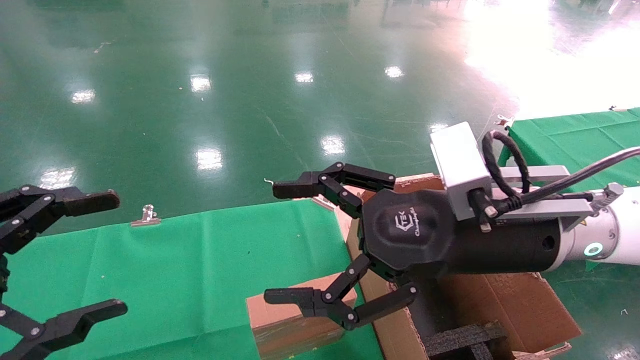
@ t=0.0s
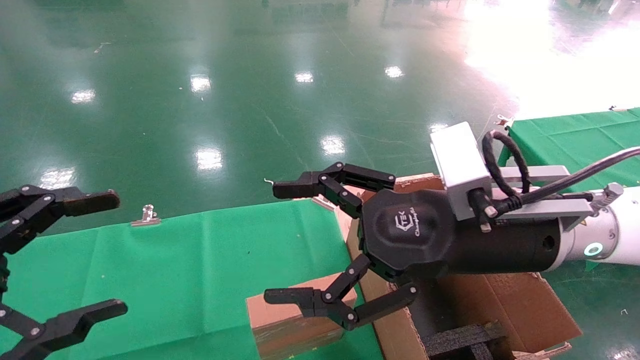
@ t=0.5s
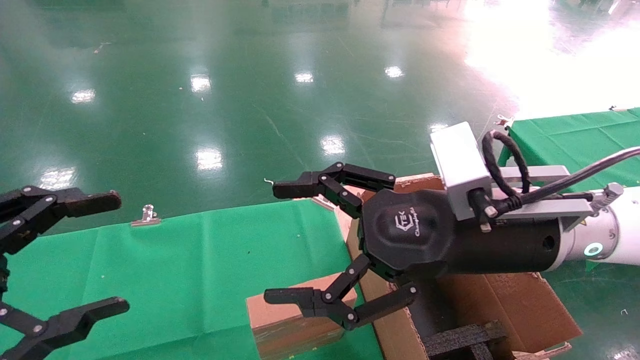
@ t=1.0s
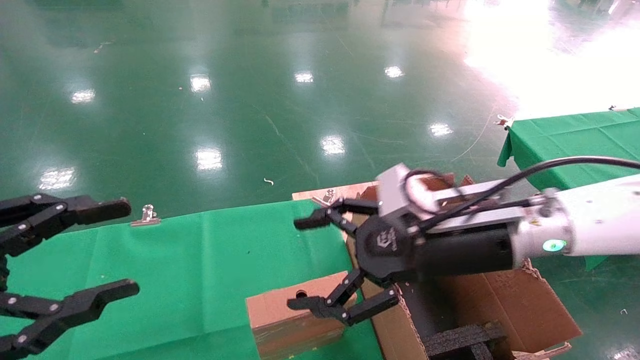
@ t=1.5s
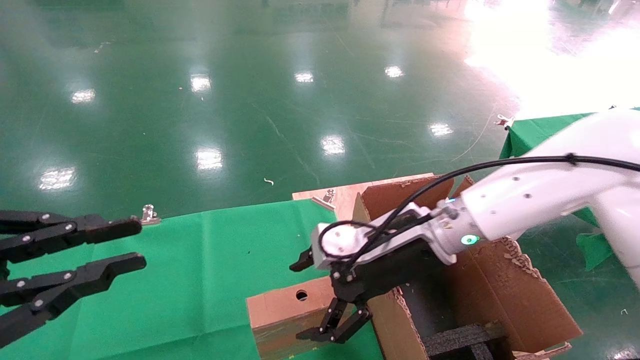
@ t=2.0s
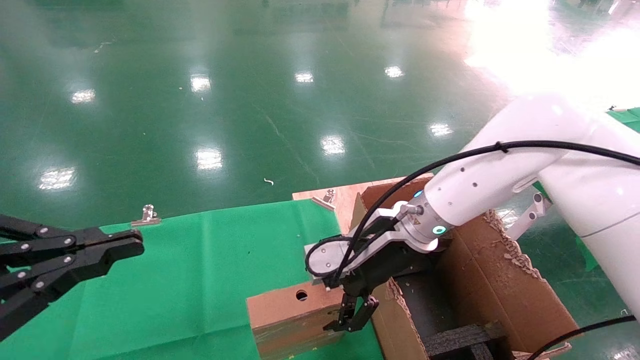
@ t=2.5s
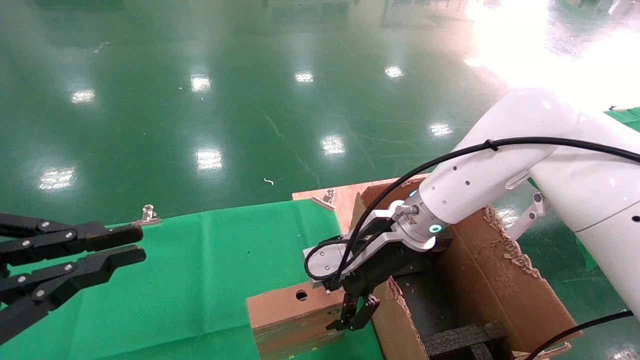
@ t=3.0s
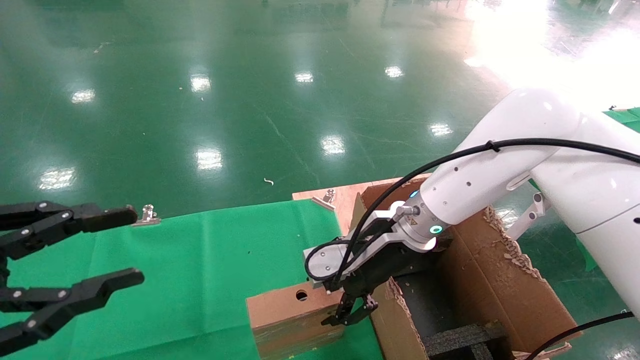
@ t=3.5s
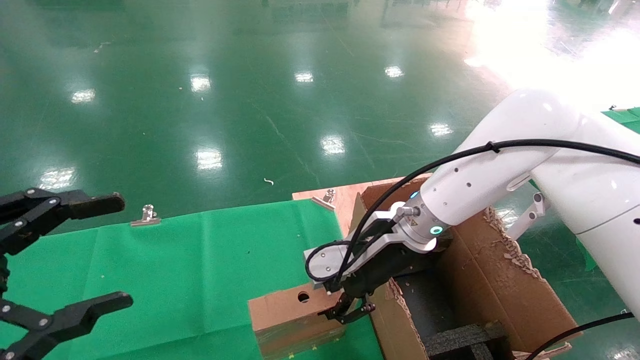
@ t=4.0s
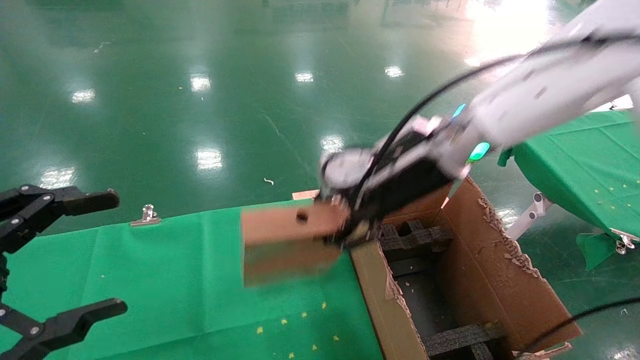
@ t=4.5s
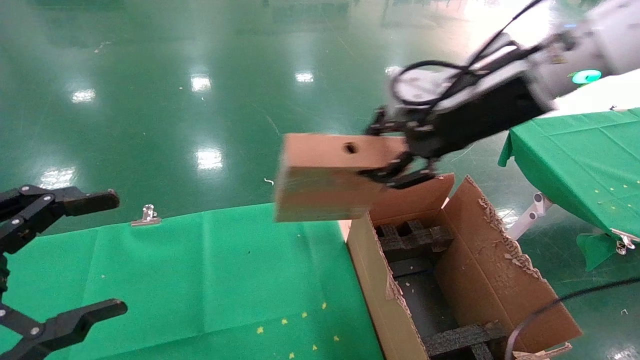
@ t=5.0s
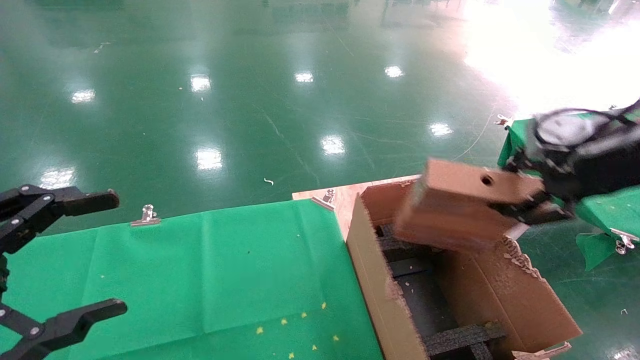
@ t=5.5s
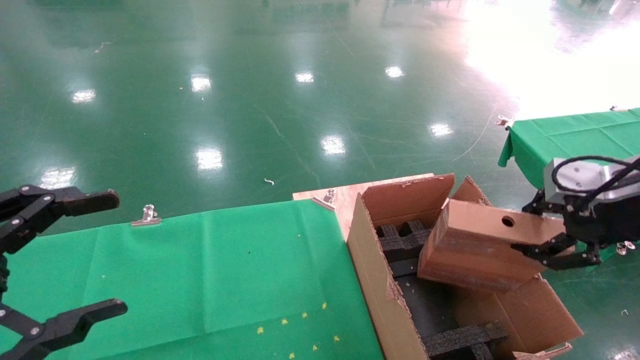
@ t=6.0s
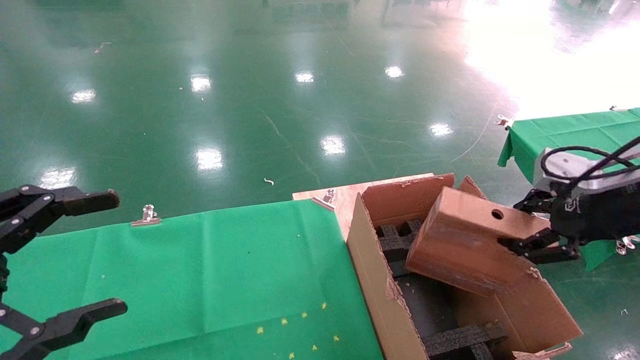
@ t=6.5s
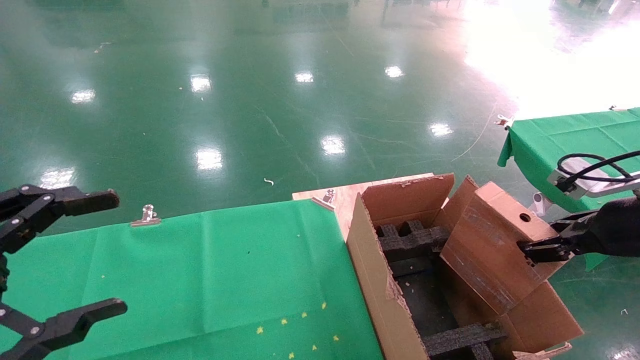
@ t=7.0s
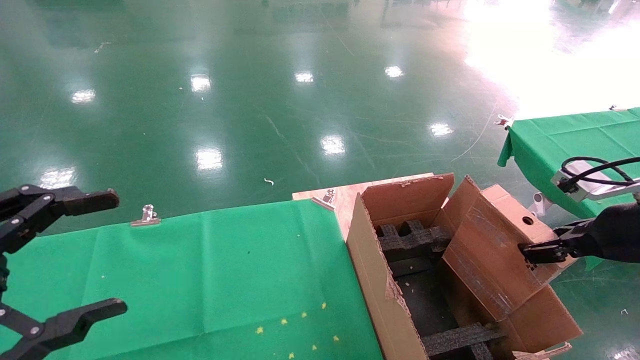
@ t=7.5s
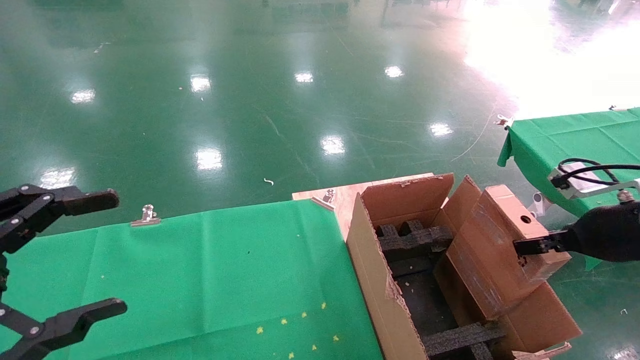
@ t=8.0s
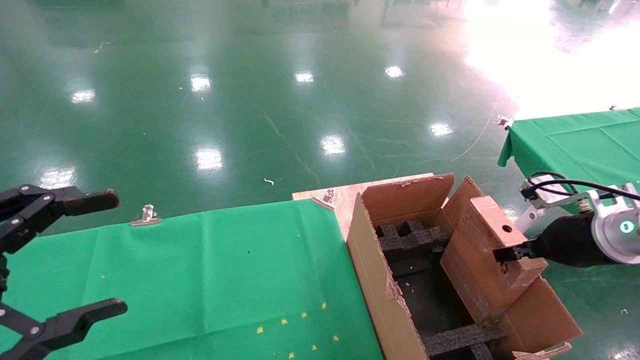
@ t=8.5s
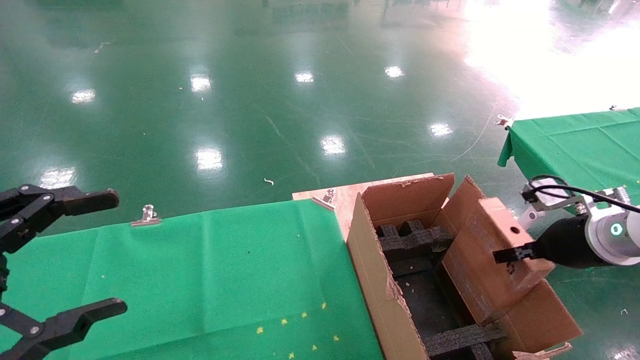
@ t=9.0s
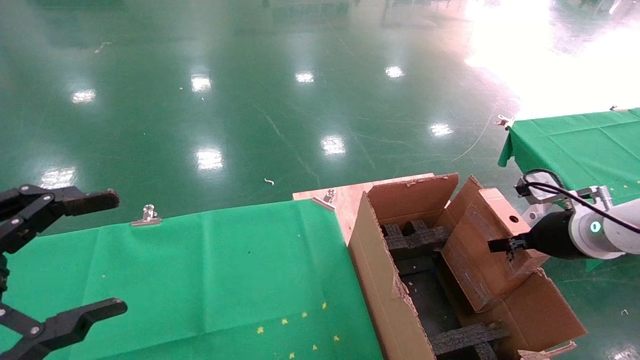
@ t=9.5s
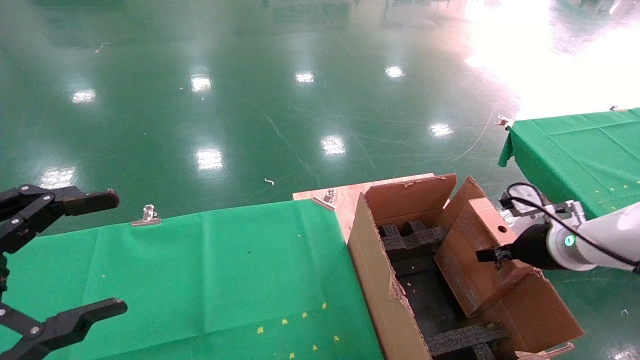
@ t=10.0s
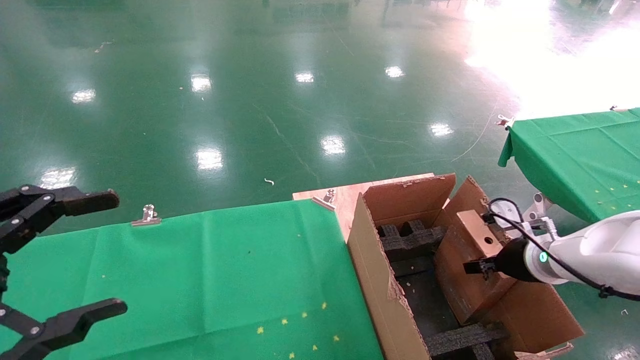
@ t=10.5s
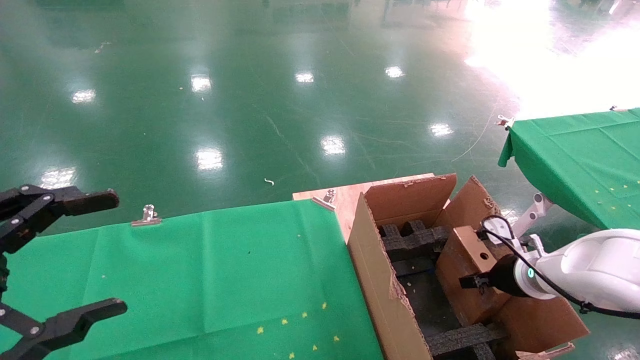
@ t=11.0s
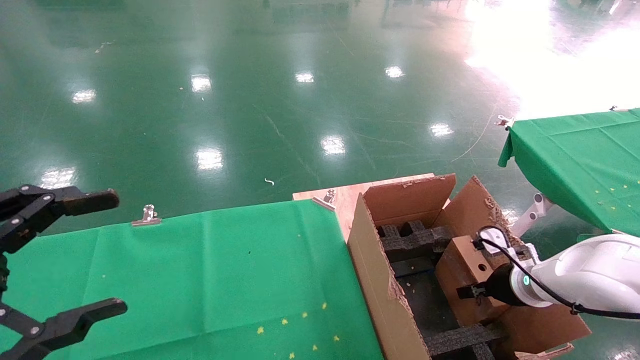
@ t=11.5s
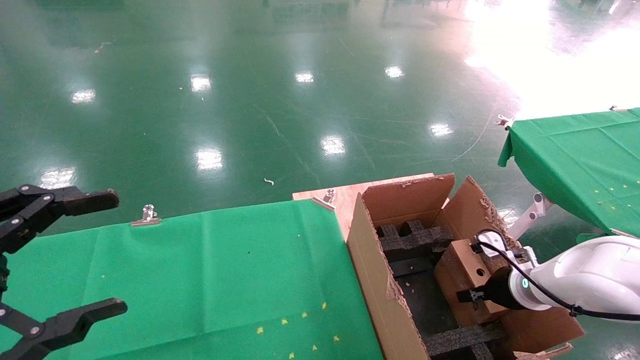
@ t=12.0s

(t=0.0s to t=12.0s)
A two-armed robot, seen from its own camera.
Task of the whole recording: using a robotic arm to pick up a cardboard box and palace it the carton.
Step, t=1.5s - t=3.5s: Pick up the mouse and the power cord paper box.
t=0.0s - t=2.0s: The left gripper closes up, while the right gripper is displaced forward and downward by about 10 cm.
t=2.0s - t=4.0s: The left gripper opens up; the right gripper closes up.
t=4.0s - t=6.0s: The right gripper heads to the right and backward, covering approximately 30 cm.
t=6.0s - t=8.0s: The right gripper goes some 10 cm downward.
t=8.0s - t=10.0s: The right gripper moves downward and forward, some 10 cm.
t=10.0s - t=12.0s: The right gripper travels downward by approximately 10 cm.

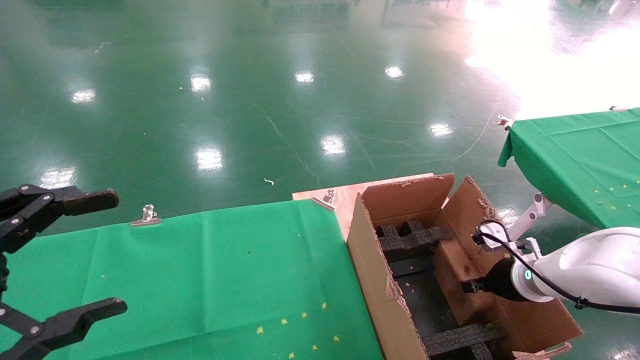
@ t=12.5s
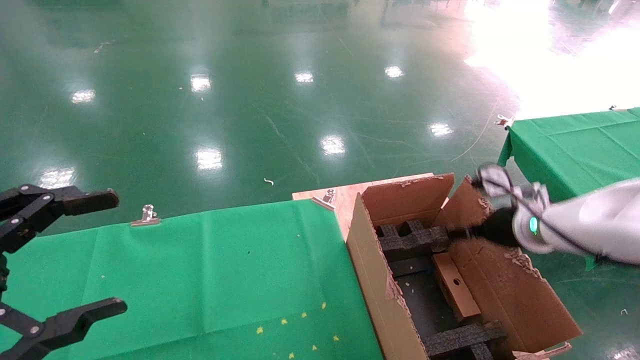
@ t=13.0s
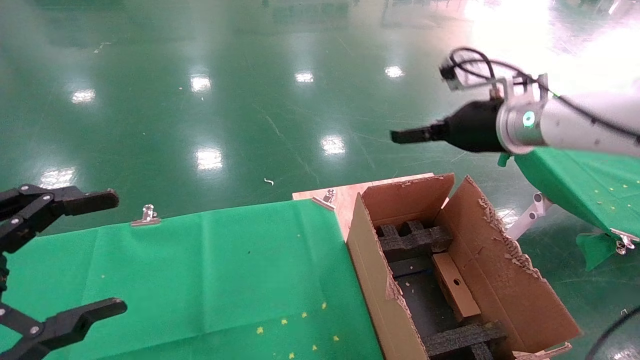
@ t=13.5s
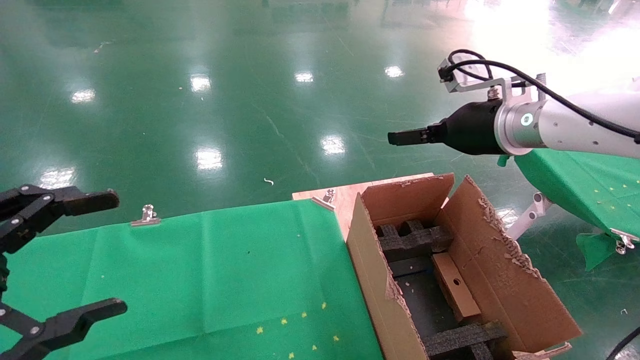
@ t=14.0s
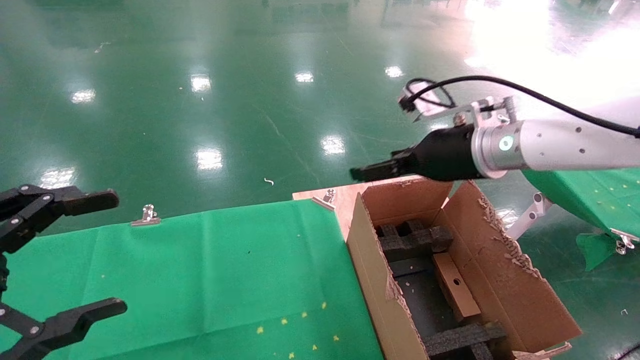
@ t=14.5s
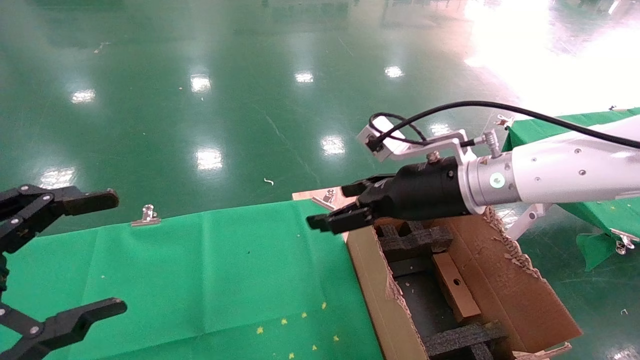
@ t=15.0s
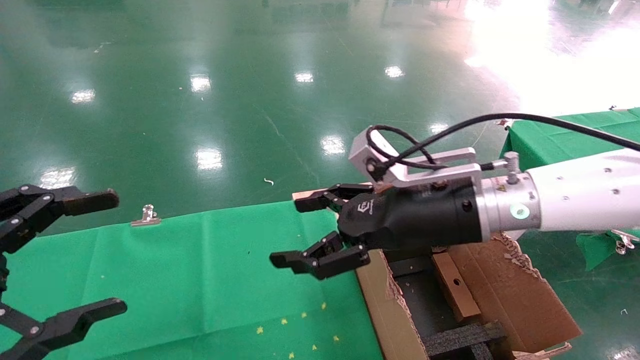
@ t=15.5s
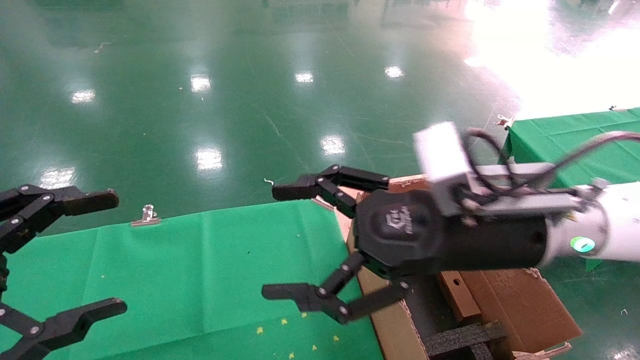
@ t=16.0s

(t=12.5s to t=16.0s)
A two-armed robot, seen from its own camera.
Task of the whole recording: using a robotic arm to pick up a cardboard box and palace it the carton.
t=12.5s - t=14.5s: The right gripper moves upward and to the left, roughly 25 cm, and opens its fingers.
t=14.5s - t=16.0s: The right gripper heads backward and to the left, covering about 15 cm.
